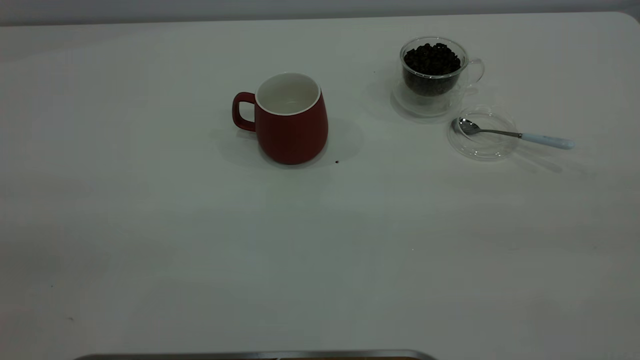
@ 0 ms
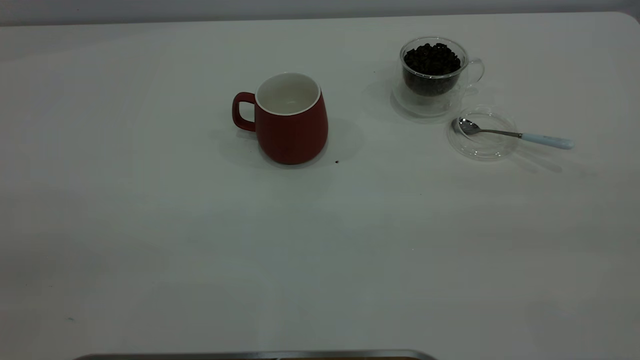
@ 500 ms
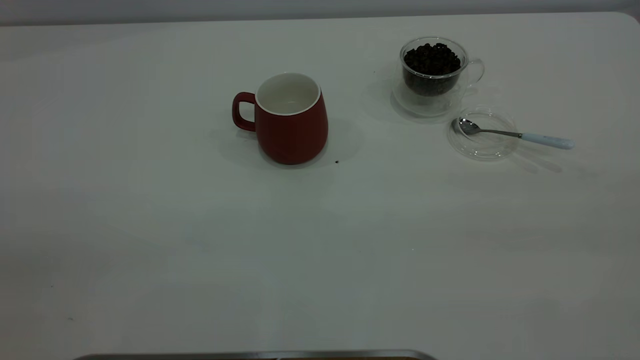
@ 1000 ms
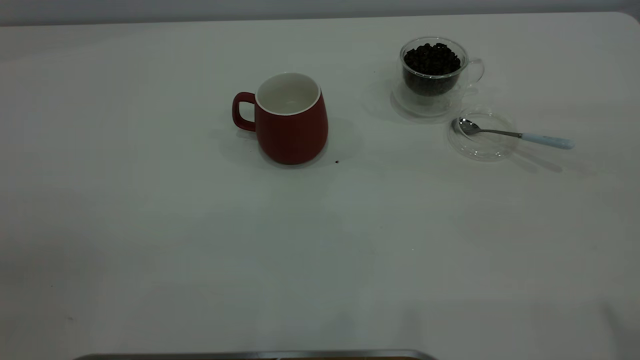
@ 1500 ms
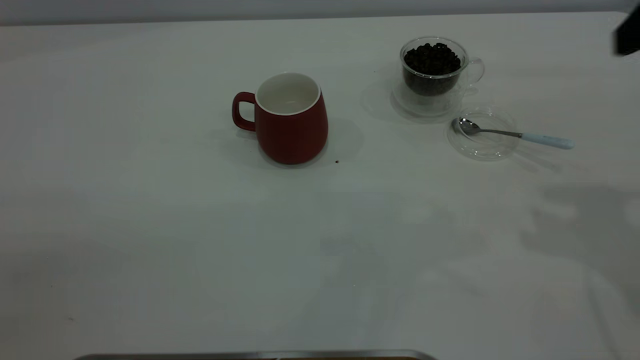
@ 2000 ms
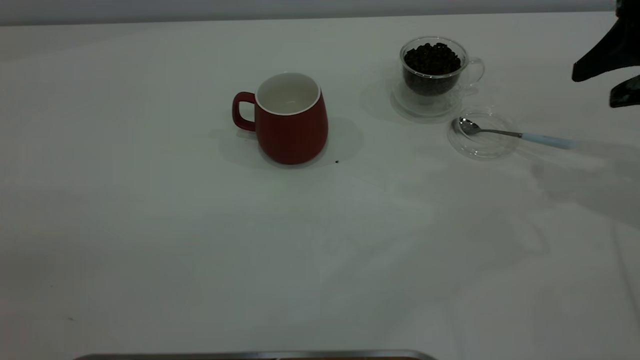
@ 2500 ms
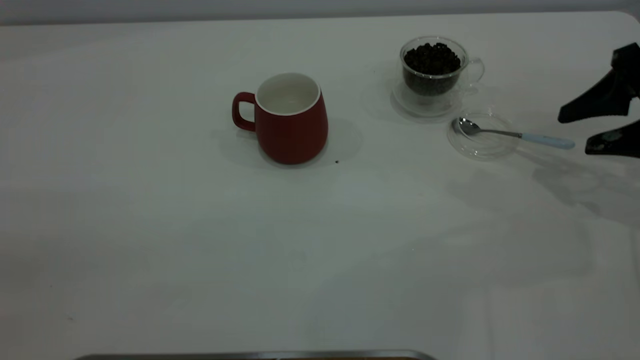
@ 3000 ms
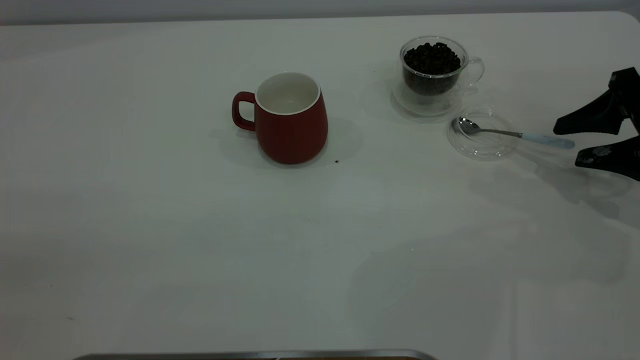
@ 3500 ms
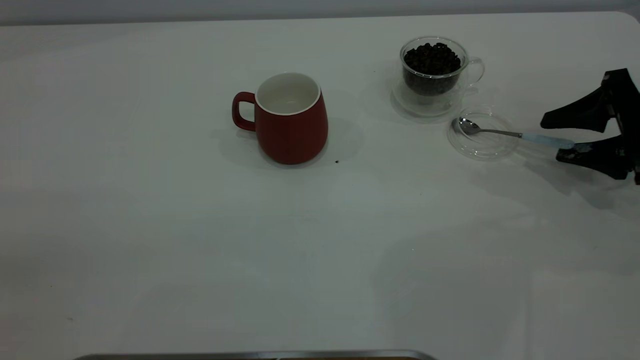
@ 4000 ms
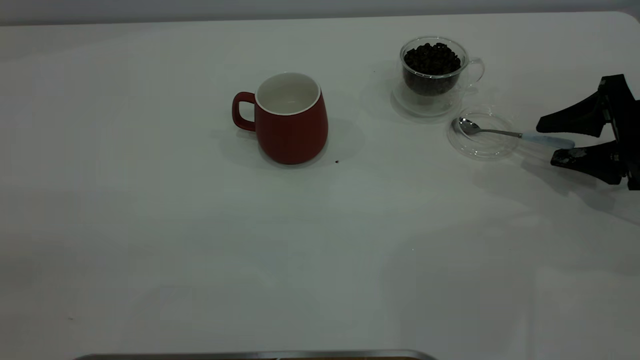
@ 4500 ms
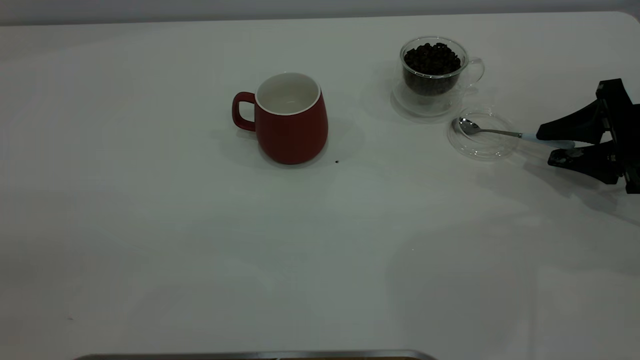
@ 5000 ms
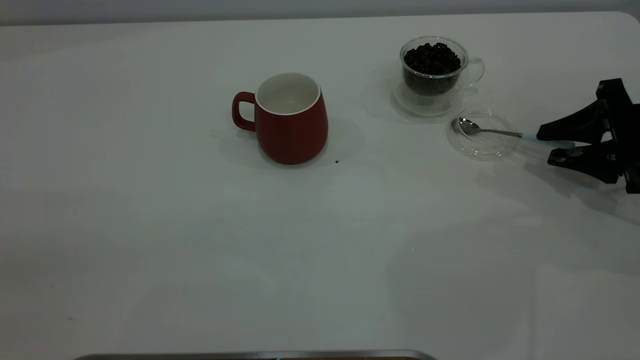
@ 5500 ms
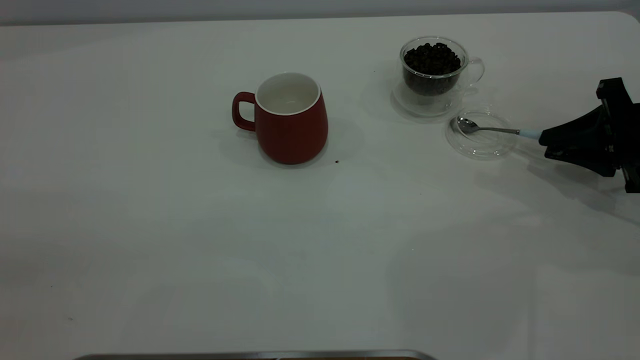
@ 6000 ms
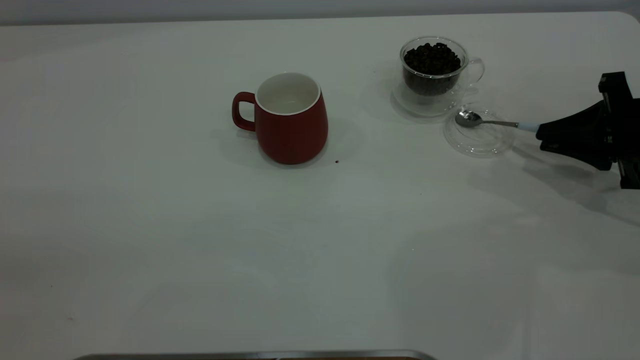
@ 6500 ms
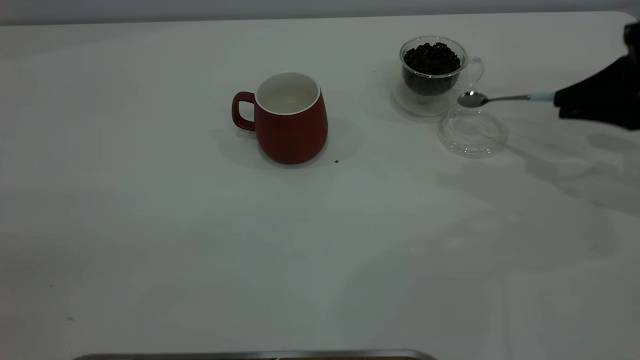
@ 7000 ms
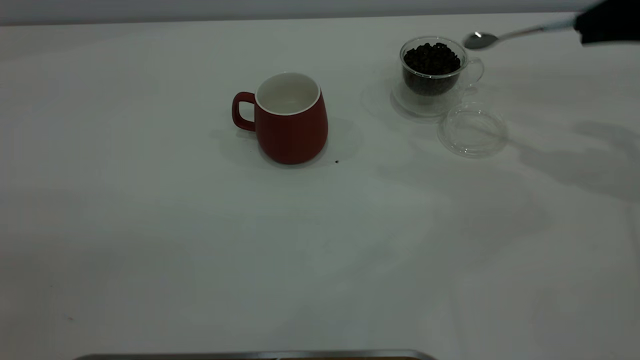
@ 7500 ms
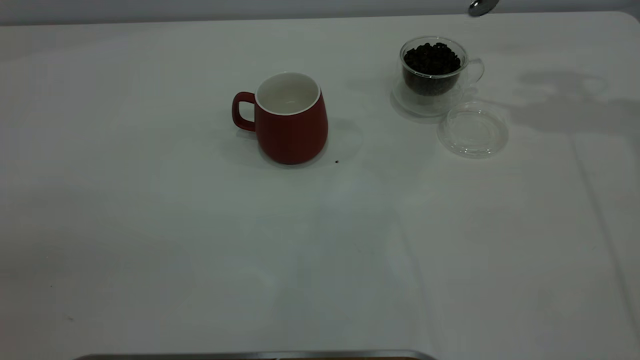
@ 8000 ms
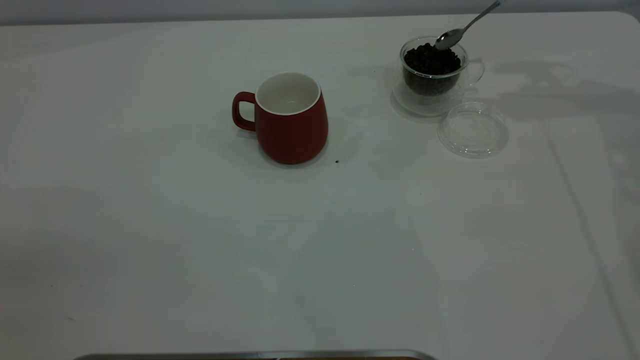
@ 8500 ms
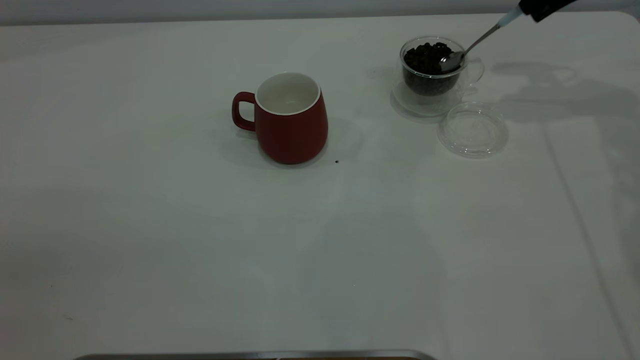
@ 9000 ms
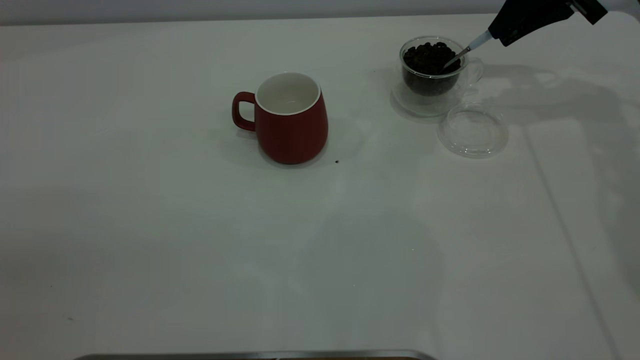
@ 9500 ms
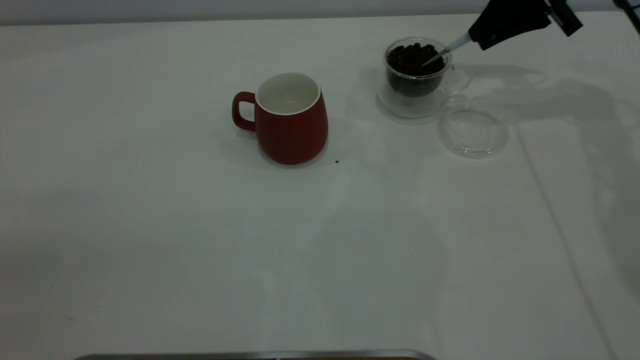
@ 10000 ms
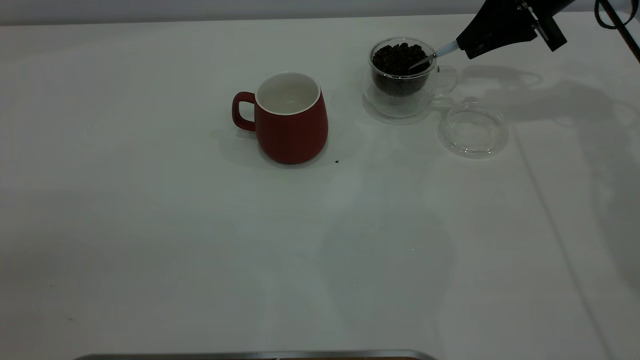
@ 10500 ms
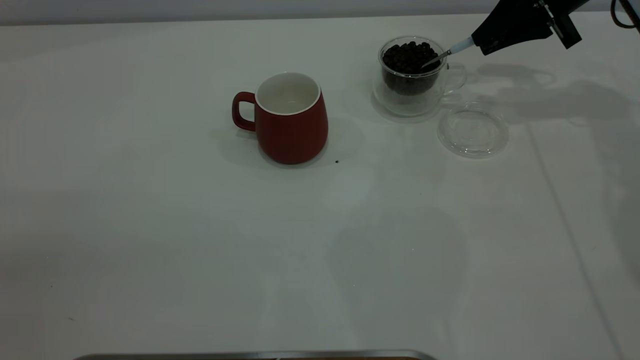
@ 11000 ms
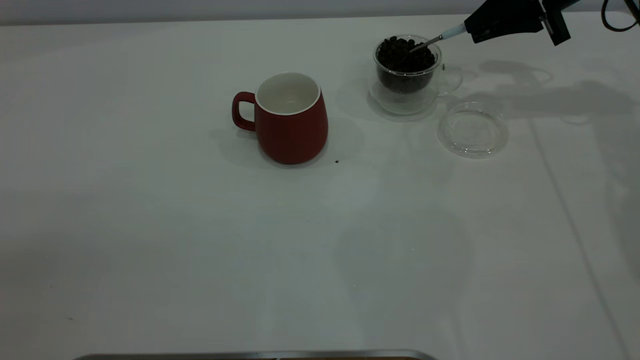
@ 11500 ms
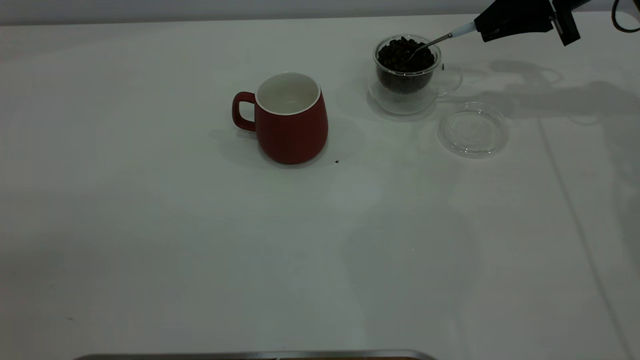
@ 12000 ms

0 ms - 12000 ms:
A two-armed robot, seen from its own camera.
Task of the whole recording: the left gripper place the red cup in the center of the table, the right gripper take the blue spoon from the cup lid and scoop out the coffee beans from the coffee cup and put them into the red cup, the right gripper put the spoon back into the cup lid.
Step, 0 ms - 6500 ms: Pick up the spoon.
2000 ms - 4000 ms: The right gripper shifts some 20 cm downward.
4000 ms - 6000 ms: The right gripper closes up.
6000 ms - 8000 ms: The right gripper is displaced upward and forward by about 25 cm.
8000 ms - 10000 ms: The right gripper heads downward, covering approximately 10 cm.
10000 ms - 12000 ms: The grippers stay close to where they were, moving slightly.

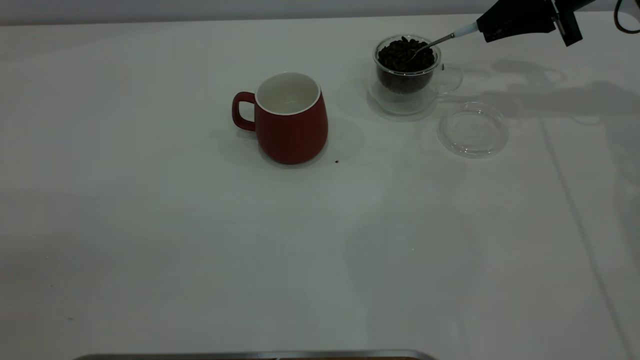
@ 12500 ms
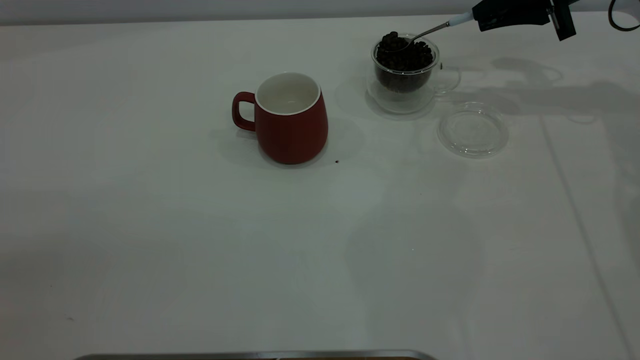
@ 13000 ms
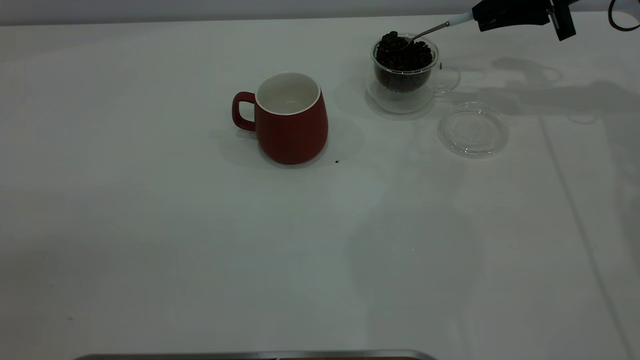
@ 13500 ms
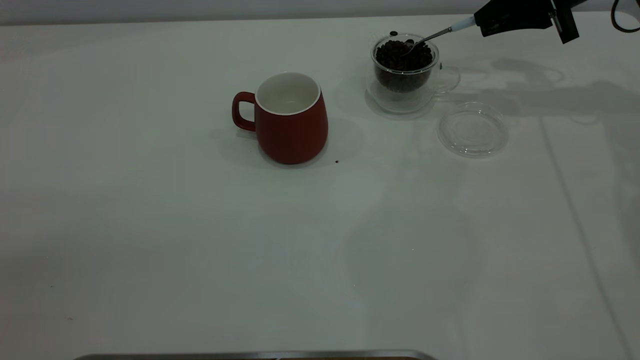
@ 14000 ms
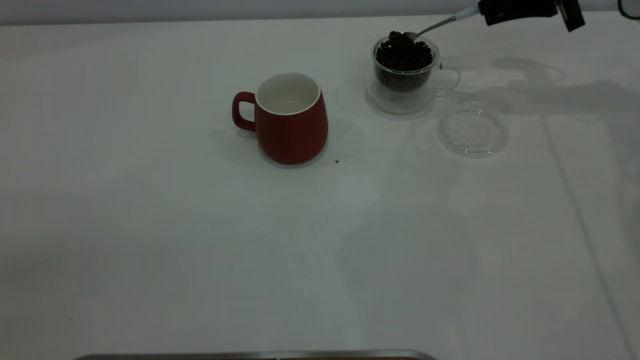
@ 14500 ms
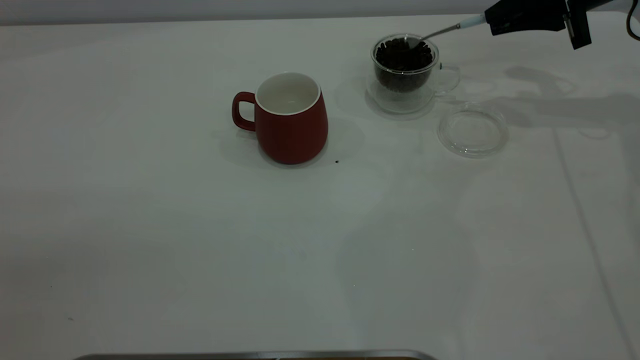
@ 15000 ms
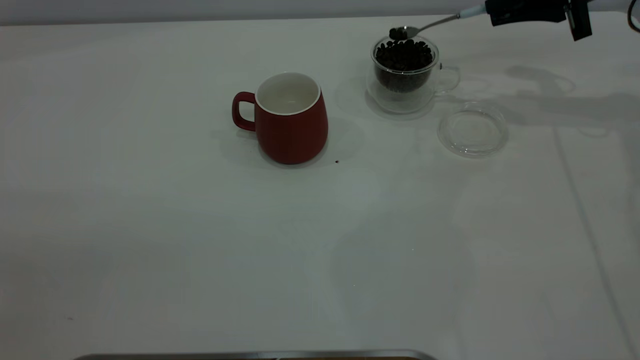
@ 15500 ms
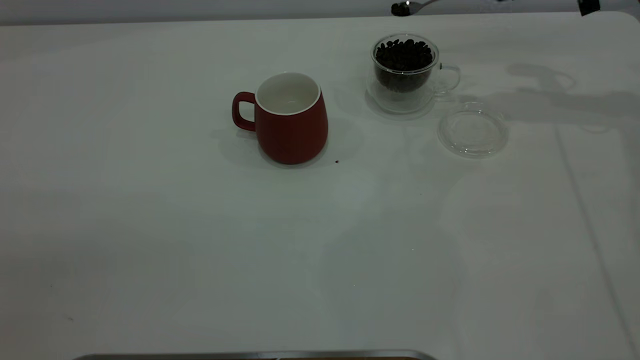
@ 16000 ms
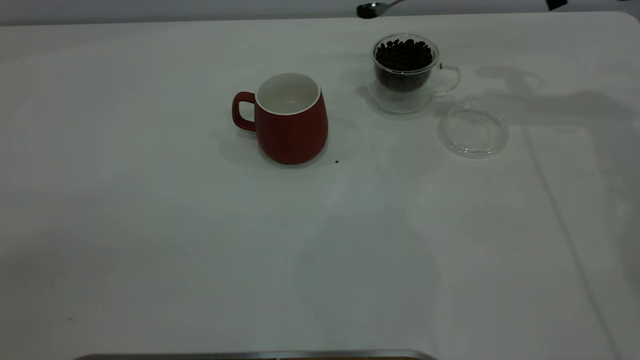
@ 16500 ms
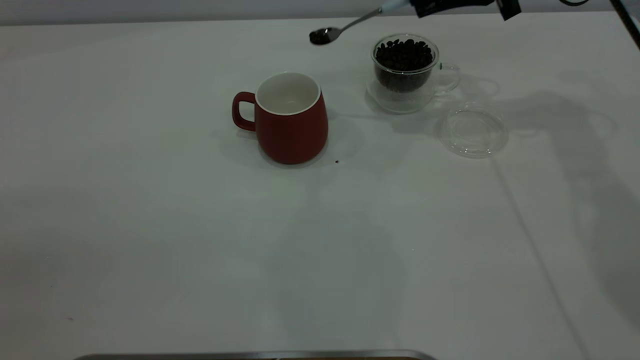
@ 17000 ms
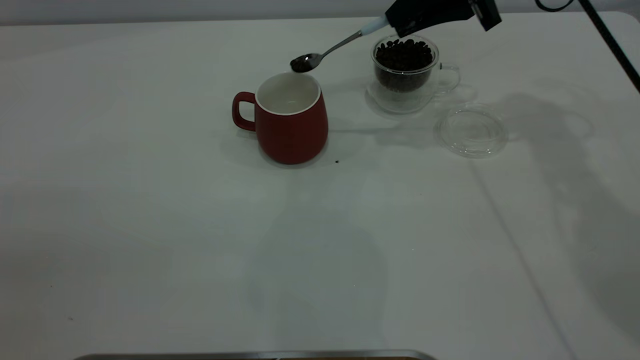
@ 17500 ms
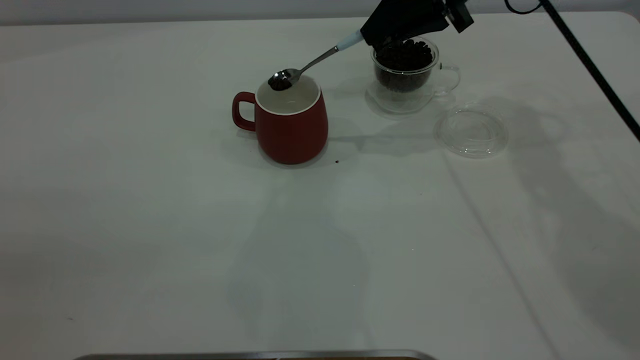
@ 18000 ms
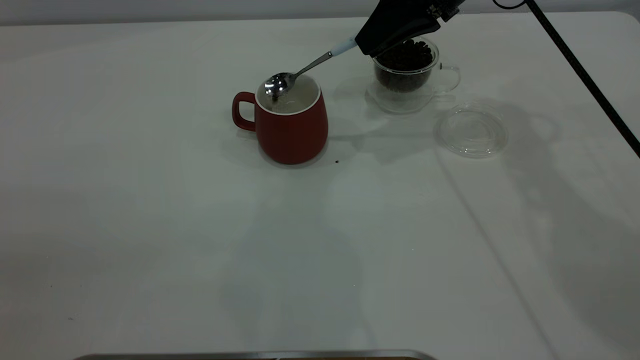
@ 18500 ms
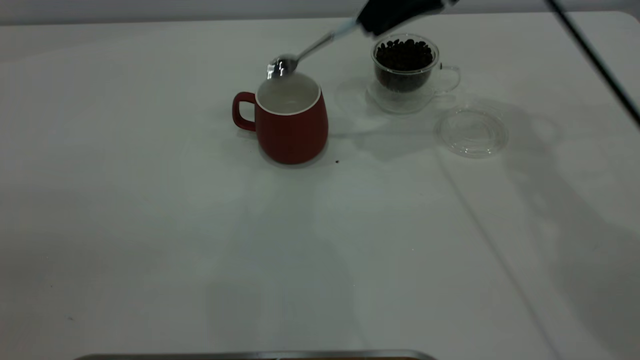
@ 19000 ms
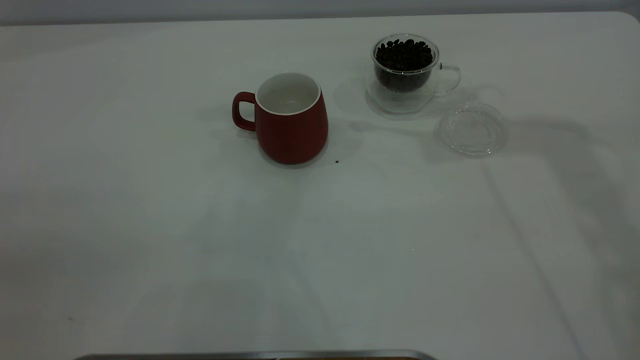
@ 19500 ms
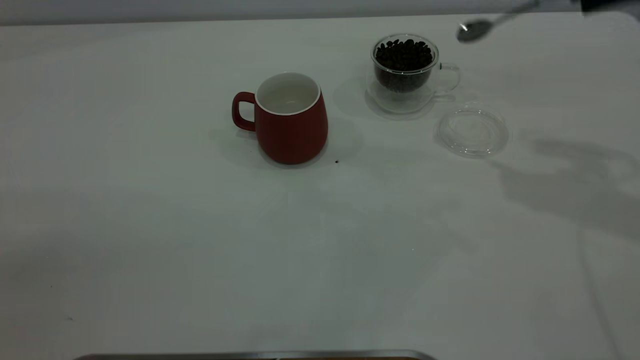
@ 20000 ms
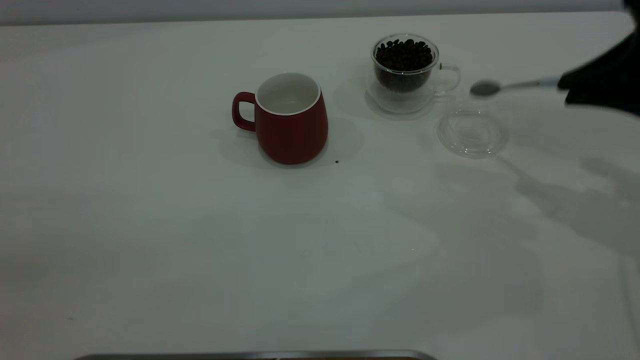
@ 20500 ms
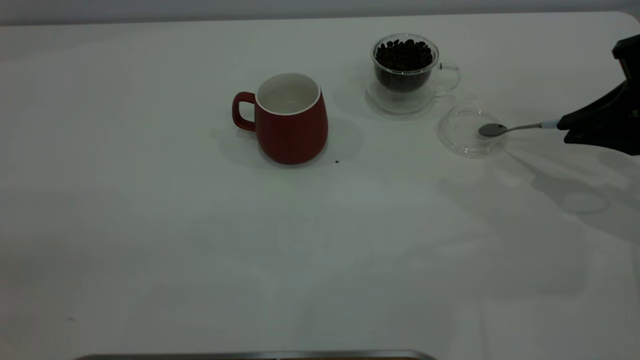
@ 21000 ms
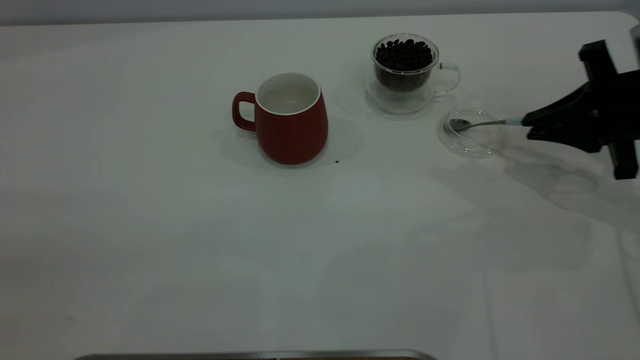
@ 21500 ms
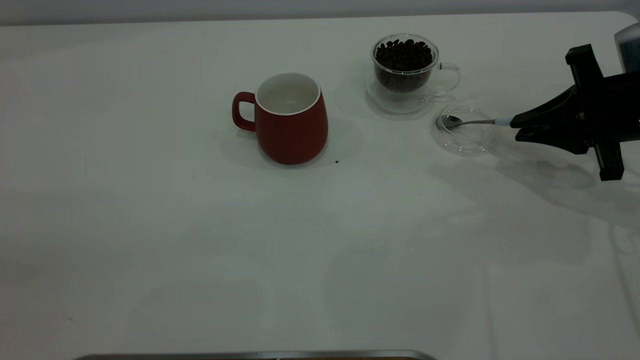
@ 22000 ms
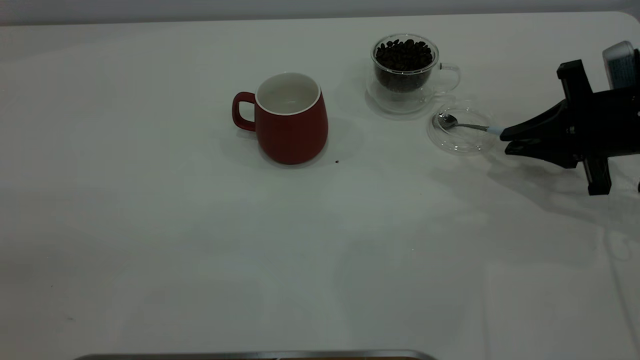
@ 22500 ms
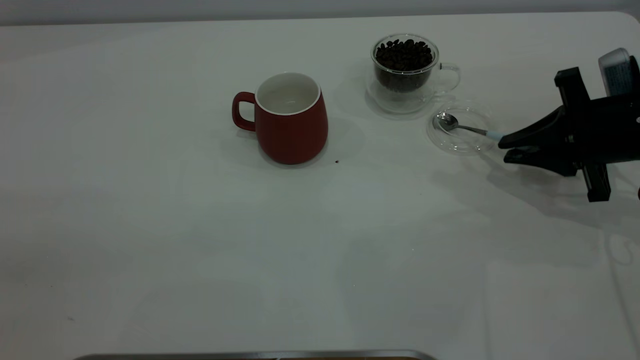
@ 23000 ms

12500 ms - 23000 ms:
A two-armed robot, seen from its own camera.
Task of the whole recording: the left gripper place the red cup in the center of the table, the right gripper take the blue spoon from the cup lid and scoop out the coffee beans from the coffee cup and put them into the red cup, the right gripper put the spoon back into the cup lid.
Step, 12500 ms - 18500 ms: Scoop a spoonful of beans into the cup.
12500 ms - 14500 ms: The grippers move only a little.
14500 ms - 16500 ms: The right gripper moves about 5 cm.
16500 ms - 19000 ms: The right gripper is displaced to the left by about 10 cm.
19000 ms - 21000 ms: The right gripper moves to the right, backward and downward, roughly 25 cm.
21000 ms - 23000 ms: The right gripper shifts some 5 cm downward.
